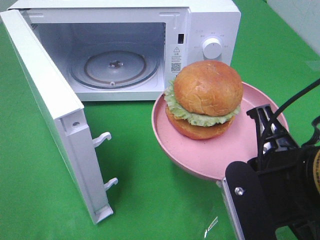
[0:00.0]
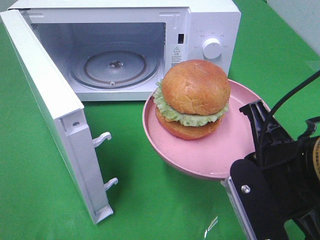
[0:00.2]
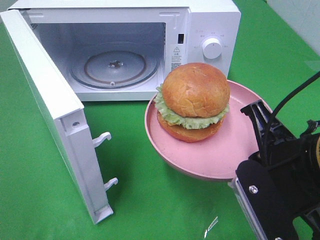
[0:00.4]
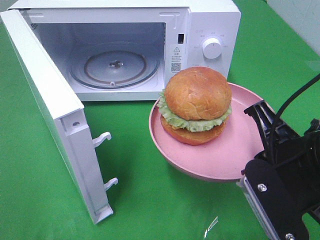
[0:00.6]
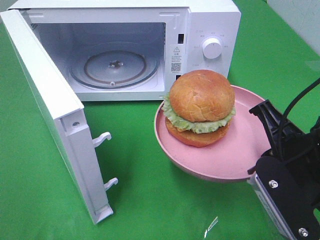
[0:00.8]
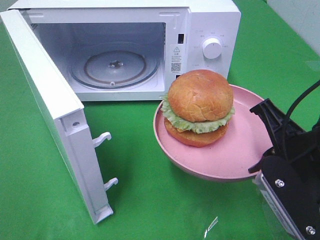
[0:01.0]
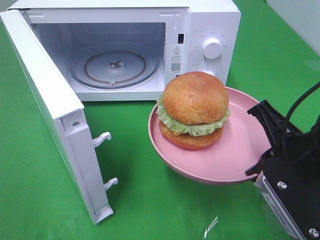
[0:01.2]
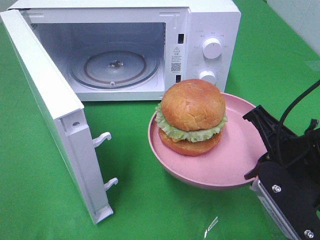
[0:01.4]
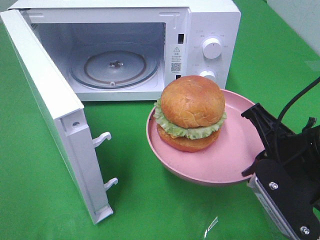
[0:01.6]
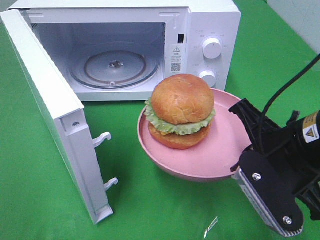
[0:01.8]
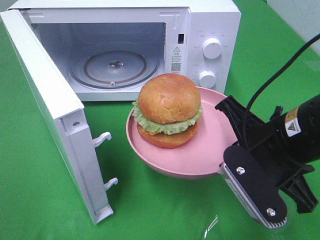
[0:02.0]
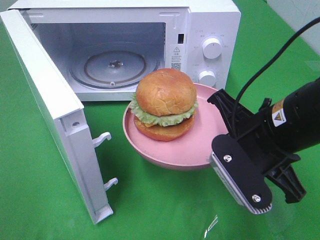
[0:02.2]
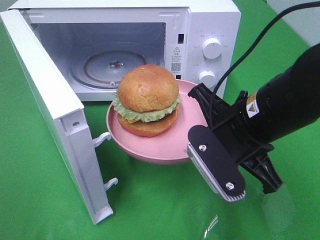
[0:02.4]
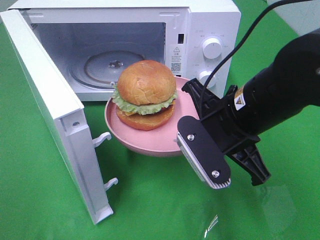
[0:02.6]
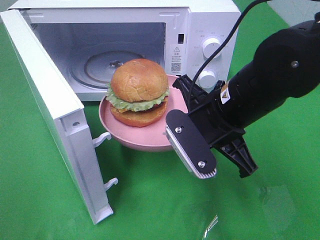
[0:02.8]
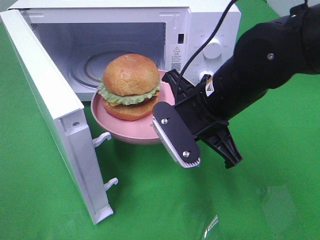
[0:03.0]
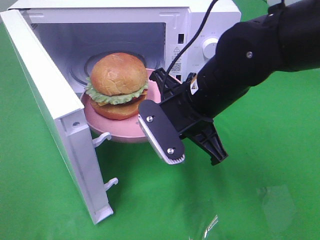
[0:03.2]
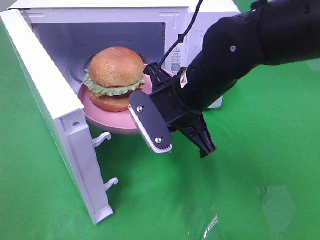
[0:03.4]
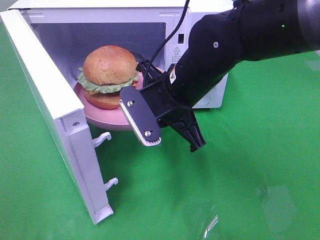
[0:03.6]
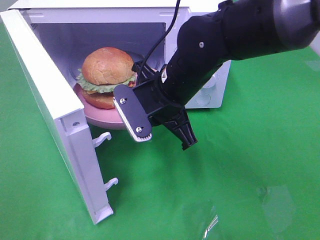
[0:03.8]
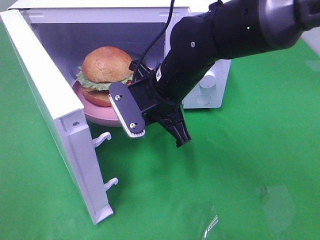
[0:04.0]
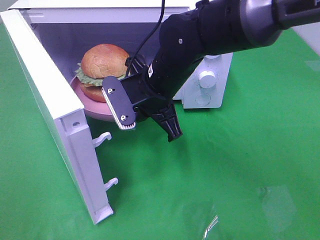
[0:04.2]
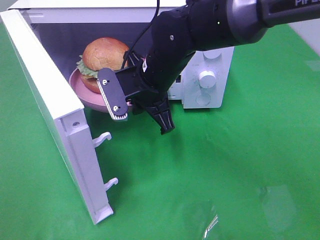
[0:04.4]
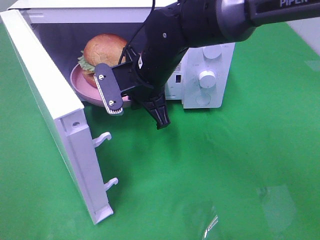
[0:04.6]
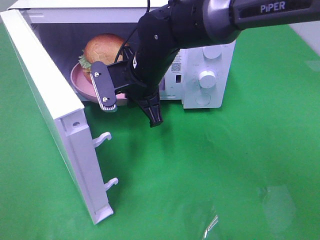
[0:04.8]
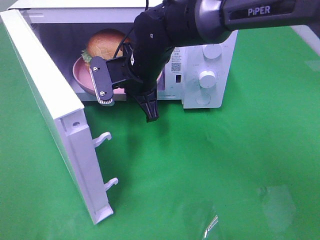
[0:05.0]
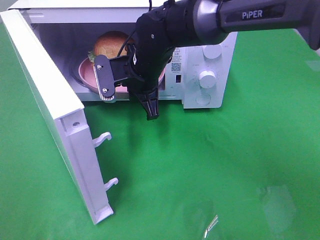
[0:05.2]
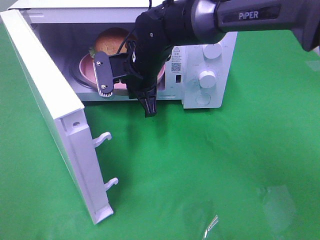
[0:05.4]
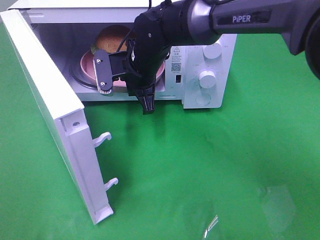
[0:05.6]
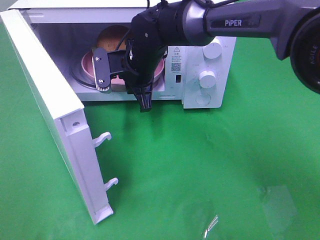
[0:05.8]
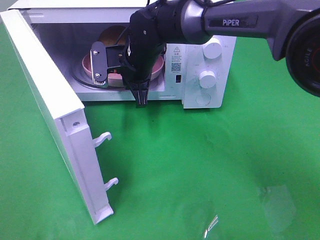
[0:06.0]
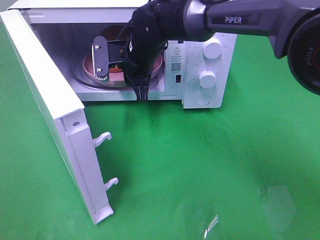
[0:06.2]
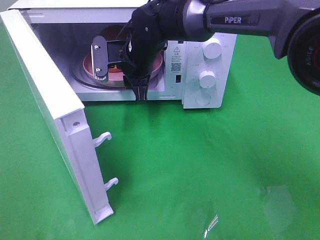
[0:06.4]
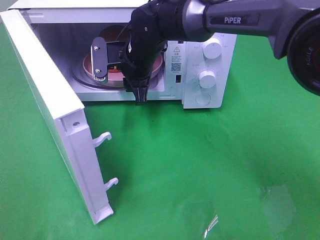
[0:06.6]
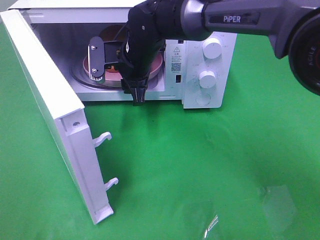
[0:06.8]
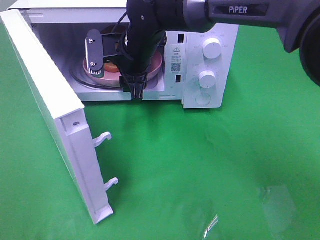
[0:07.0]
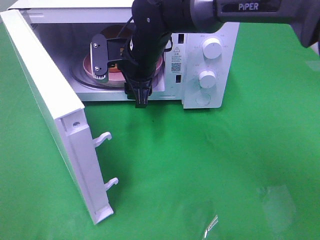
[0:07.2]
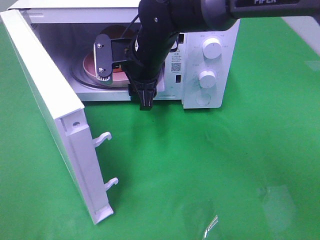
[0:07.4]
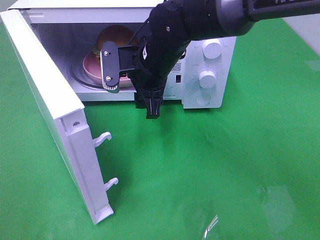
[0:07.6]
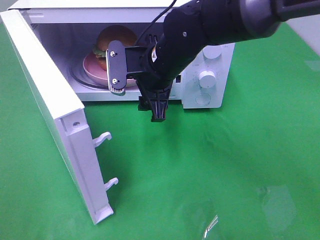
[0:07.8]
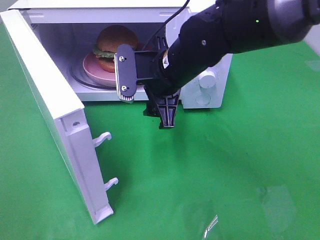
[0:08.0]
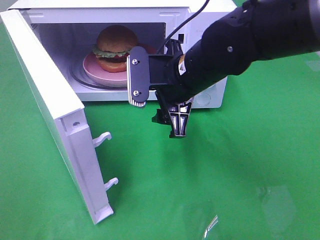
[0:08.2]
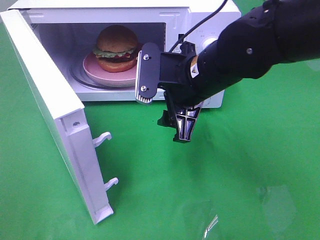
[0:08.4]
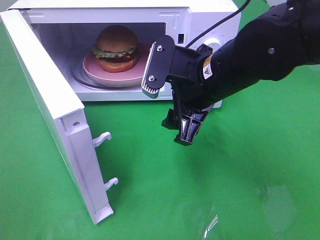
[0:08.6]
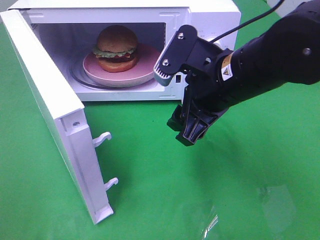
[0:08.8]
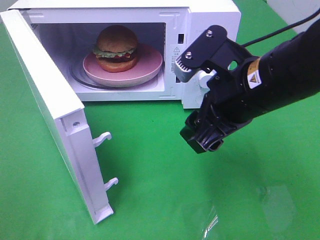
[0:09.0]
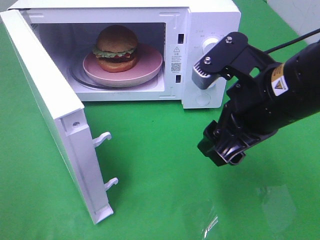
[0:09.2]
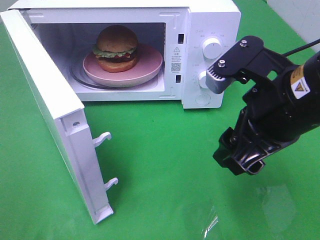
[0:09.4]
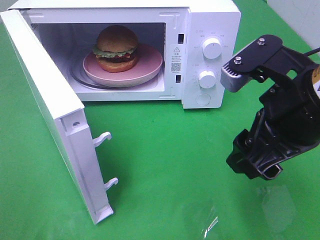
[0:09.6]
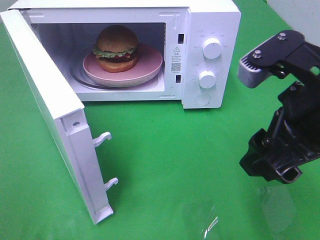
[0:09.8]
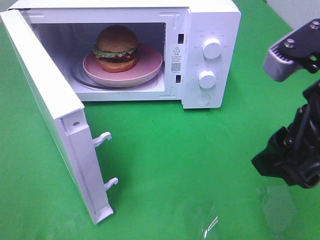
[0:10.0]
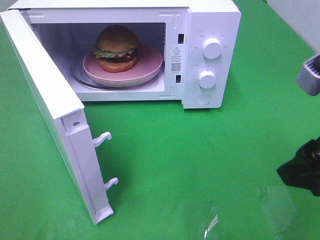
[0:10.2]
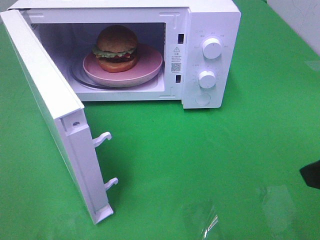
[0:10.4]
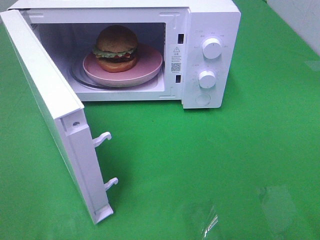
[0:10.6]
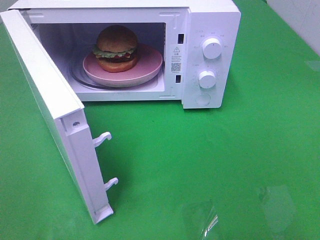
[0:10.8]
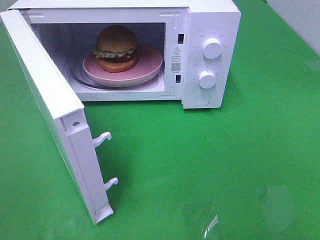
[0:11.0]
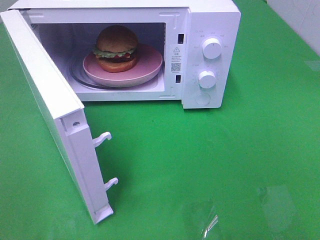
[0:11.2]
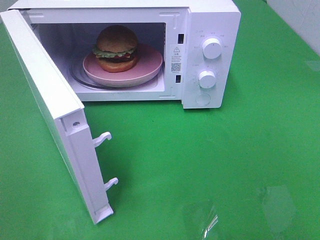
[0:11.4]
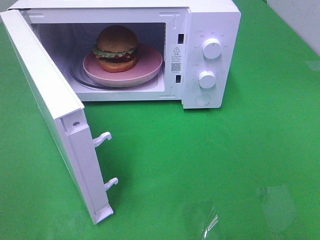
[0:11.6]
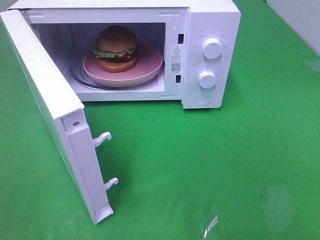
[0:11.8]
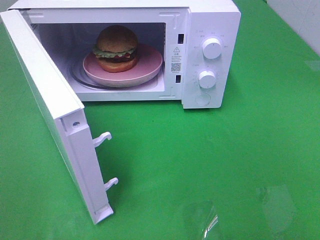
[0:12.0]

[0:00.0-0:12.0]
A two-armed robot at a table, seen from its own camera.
Task of the whole recording: Heat the burger.
Step, 0:00.0 to 0:07.2: Right hand: place the plate in the microwave.
0:00.0 to 0:01.6: The right gripper ends up approximately 5 cm from where it was.
0:01.6 to 0:03.0: The right gripper travels to the left and forward by about 15 cm.
0:03.0 to 0:04.4: The right gripper goes approximately 10 cm forward and to the left.
0:04.4 to 0:06.0: The right gripper shifts roughly 10 cm forward.
0:06.0 to 0:07.6: The right gripper is displaced backward by roughly 5 cm, and opens up.
0:07.6 to 0:09.0: The right gripper shifts approximately 20 cm backward and to the right.
0:09.0 to 0:10.4: The right gripper is displaced to the right and backward by approximately 15 cm.
0:10.4 to 0:12.0: The right gripper goes about 15 cm backward and to the right.

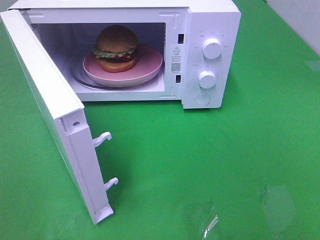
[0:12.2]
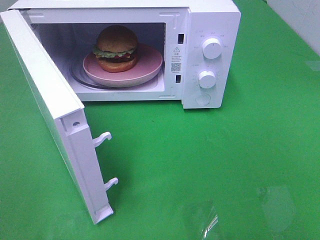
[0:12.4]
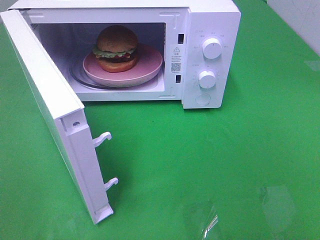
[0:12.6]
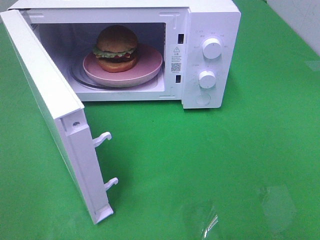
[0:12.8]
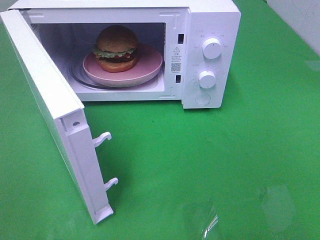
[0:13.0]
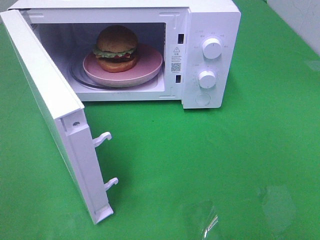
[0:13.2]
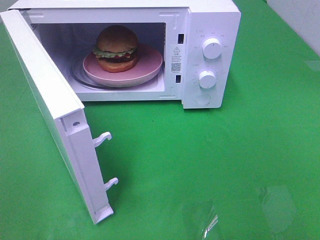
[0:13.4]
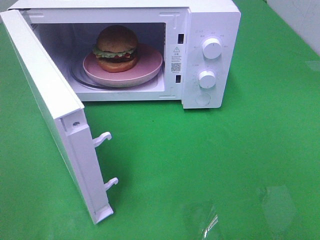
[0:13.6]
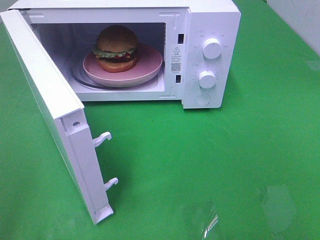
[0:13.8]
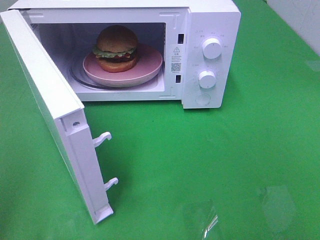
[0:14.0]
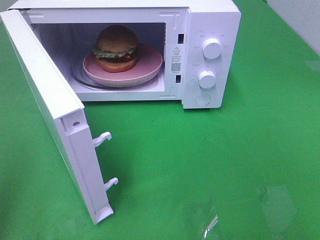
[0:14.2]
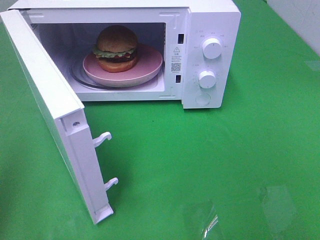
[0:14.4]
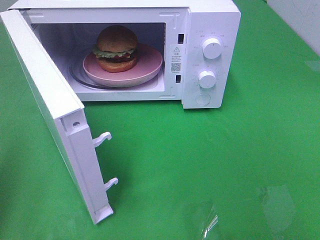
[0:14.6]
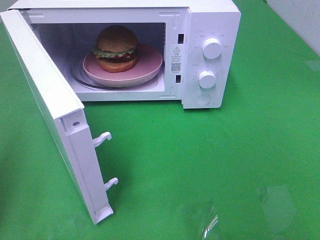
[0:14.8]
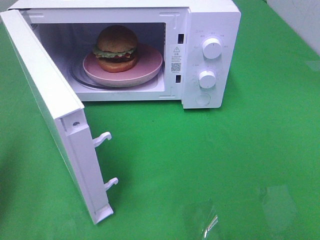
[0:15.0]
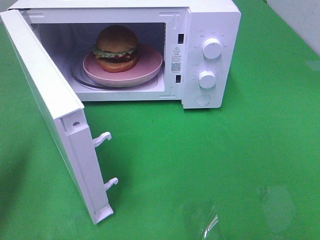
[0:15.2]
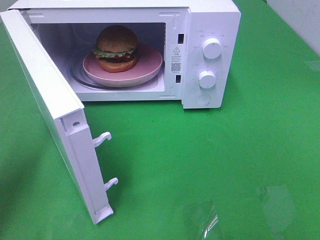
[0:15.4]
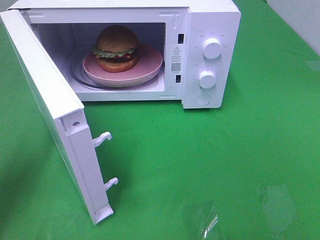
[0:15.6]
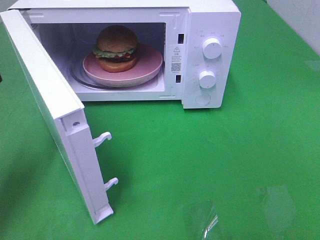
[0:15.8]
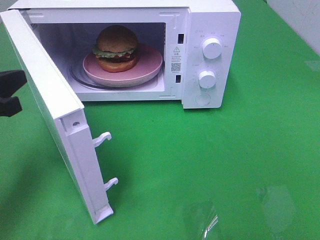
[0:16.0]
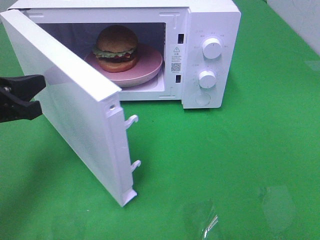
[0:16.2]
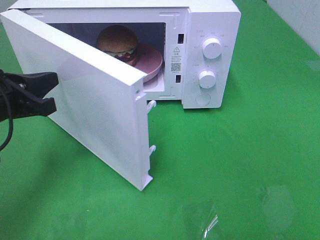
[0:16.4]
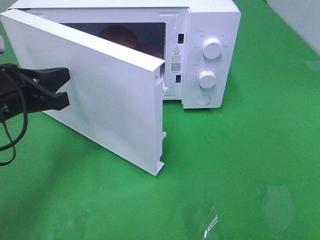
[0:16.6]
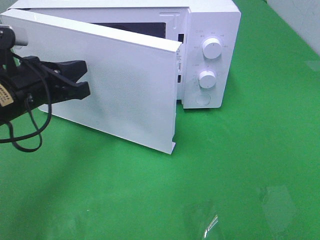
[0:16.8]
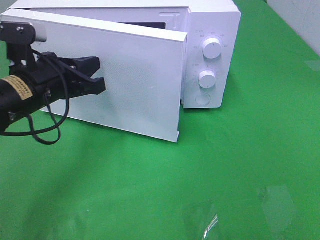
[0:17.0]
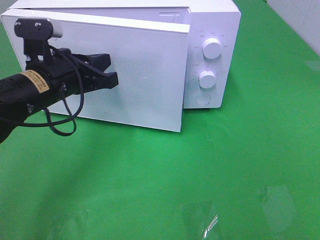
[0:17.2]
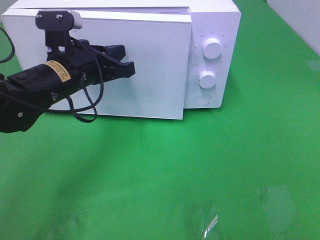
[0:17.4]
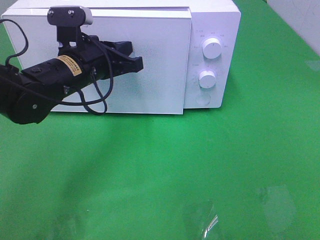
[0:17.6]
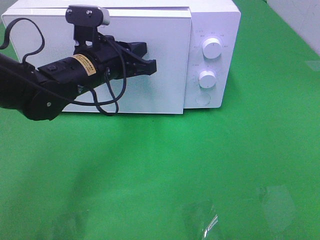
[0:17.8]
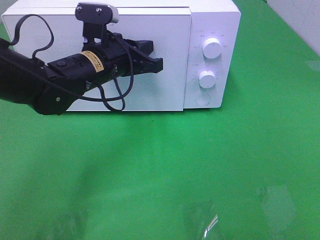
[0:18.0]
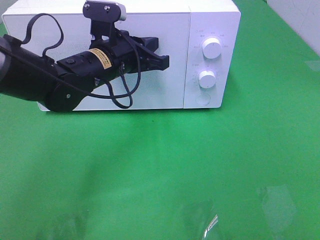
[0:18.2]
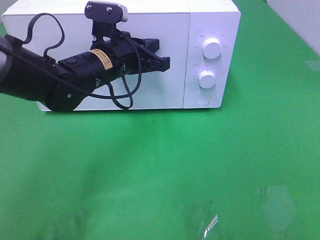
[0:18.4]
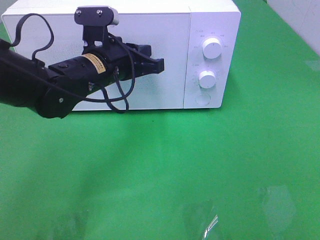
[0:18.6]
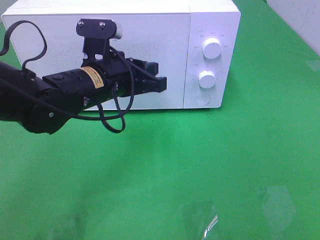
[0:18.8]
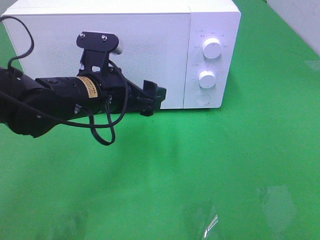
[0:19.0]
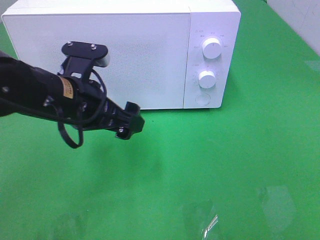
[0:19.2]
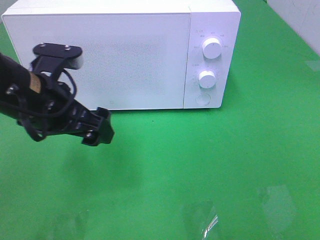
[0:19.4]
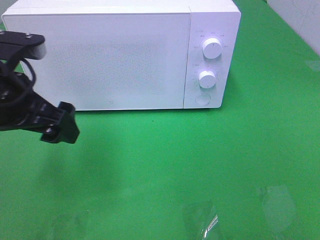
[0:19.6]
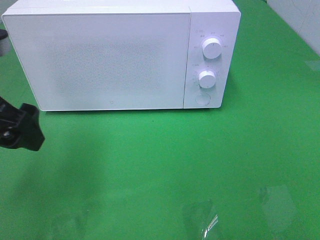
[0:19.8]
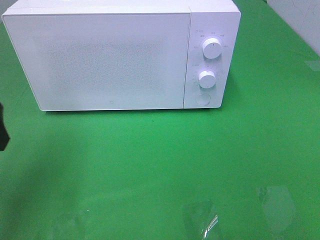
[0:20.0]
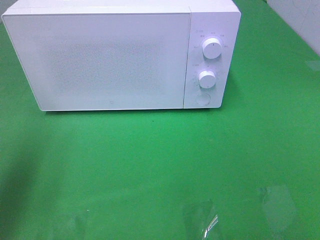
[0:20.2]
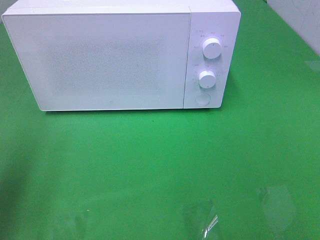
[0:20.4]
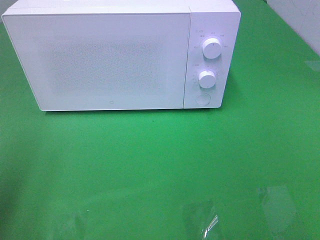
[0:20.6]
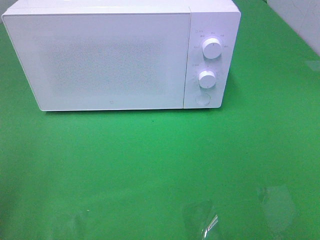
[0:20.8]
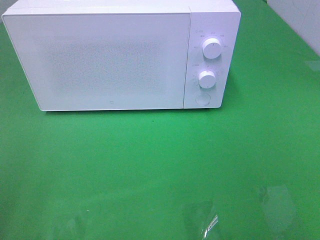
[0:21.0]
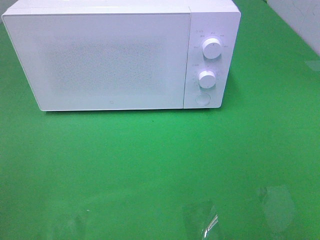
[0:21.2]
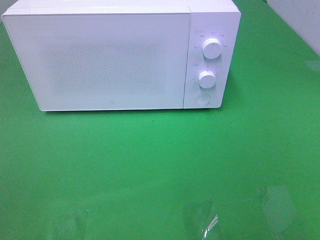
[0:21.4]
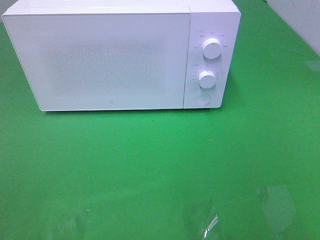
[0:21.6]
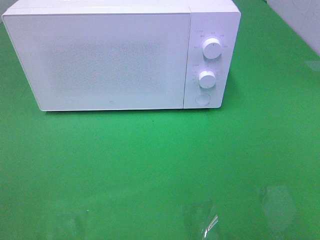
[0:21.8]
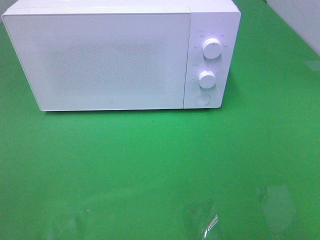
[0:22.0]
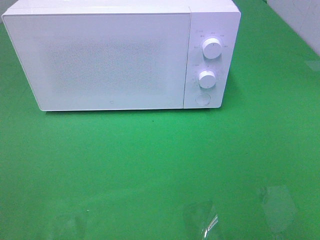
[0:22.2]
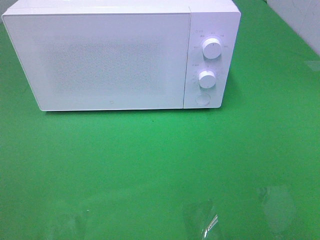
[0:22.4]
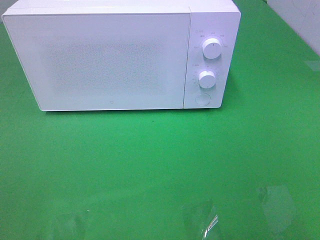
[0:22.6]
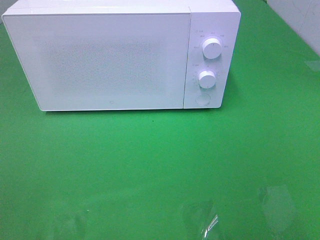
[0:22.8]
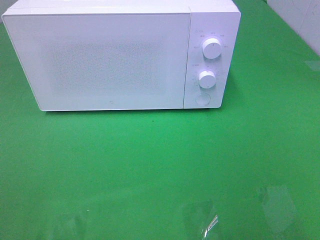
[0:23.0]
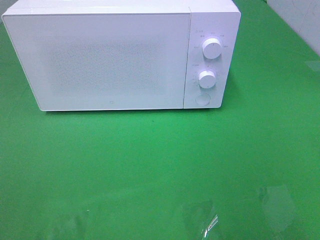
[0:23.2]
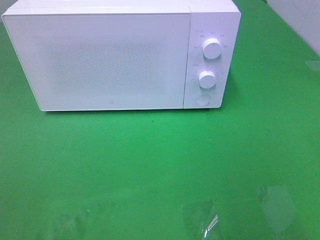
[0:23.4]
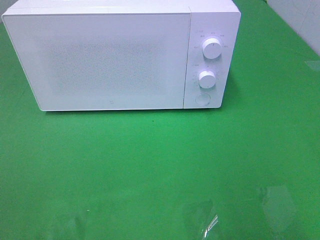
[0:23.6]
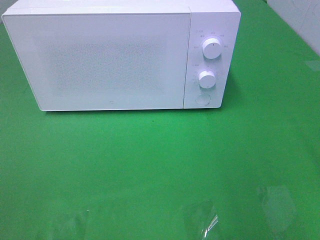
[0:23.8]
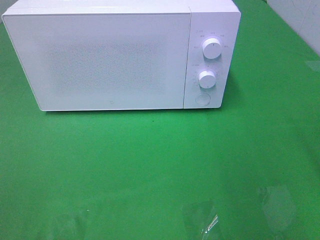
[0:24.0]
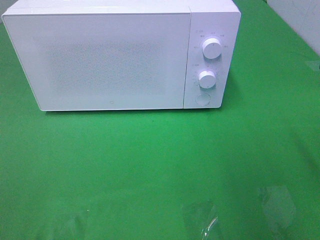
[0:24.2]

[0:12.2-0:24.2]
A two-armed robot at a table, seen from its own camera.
Task of the whole recording: Heat the burger.
Step, 0:12.2 to 0:18.8: Left hand: close the microwave door.
0:13.8 to 0:15.2: The left gripper goes about 15 cm forward and downward, and closes its fingers.
0:15.2 to 0:16.6: The left gripper heads to the right, forward and downward, covering approximately 15 cm.
0:16.6 to 0:18.2: The left gripper shifts approximately 15 cm to the right and forward.
0:18.2 to 0:19.8: The left gripper shifts approximately 20 cm backward, to the left and upward, and opens up.
0:19.8 to 0:21.2: The left gripper moves backward and to the left, roughly 20 cm.
0:22.6 to 0:24.2: The right gripper heads forward, covering some 15 cm.
